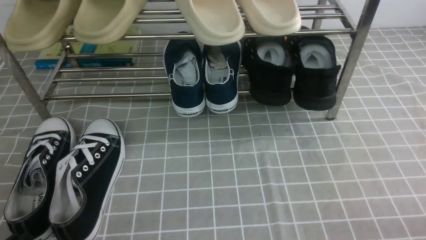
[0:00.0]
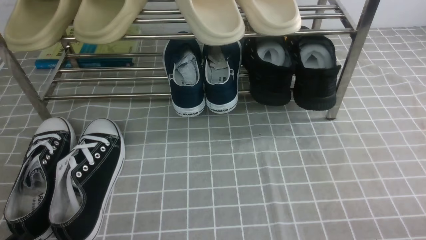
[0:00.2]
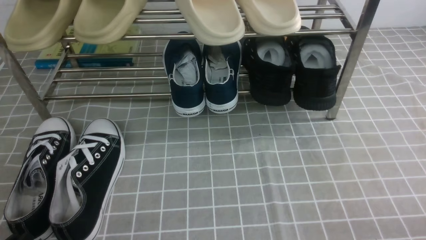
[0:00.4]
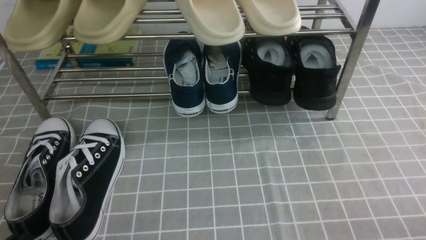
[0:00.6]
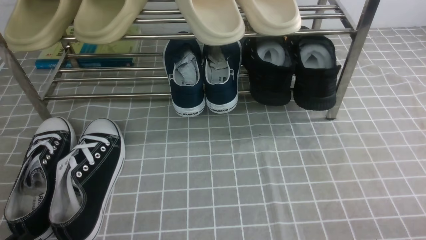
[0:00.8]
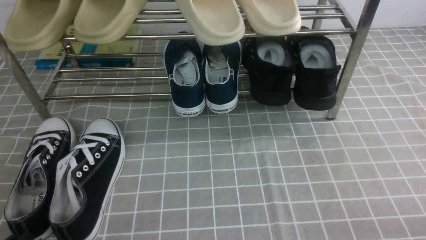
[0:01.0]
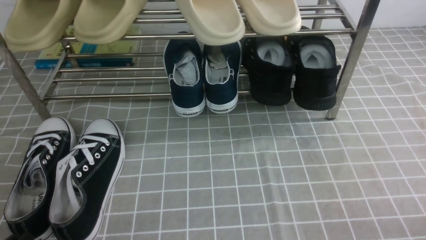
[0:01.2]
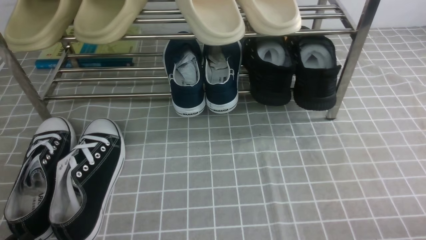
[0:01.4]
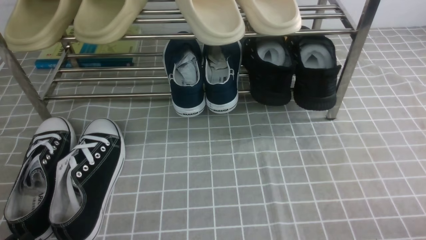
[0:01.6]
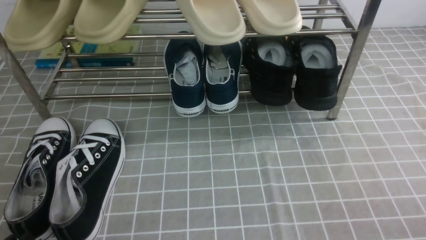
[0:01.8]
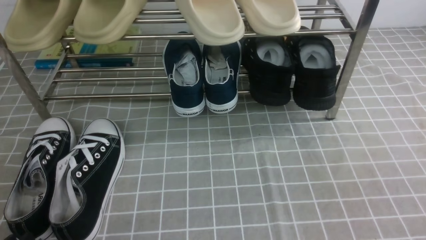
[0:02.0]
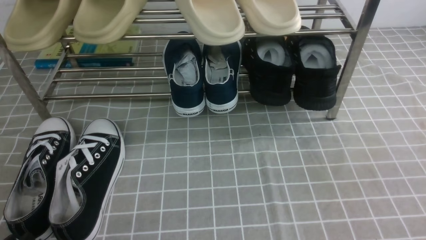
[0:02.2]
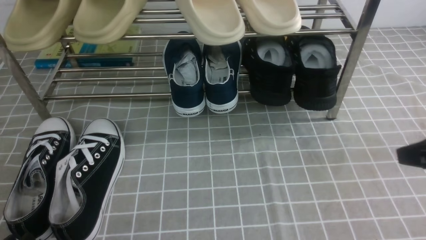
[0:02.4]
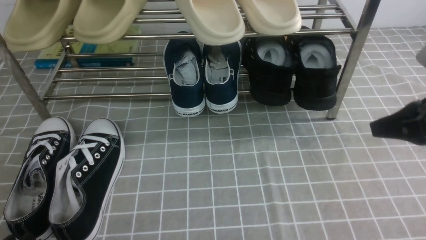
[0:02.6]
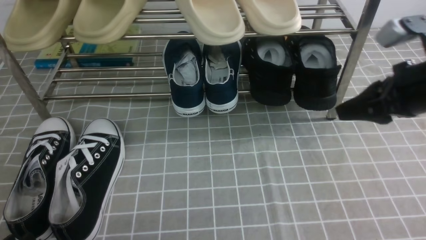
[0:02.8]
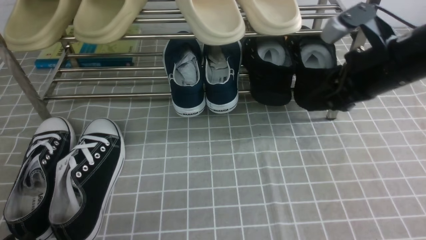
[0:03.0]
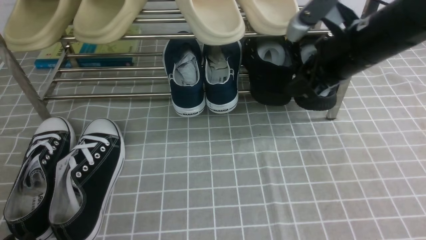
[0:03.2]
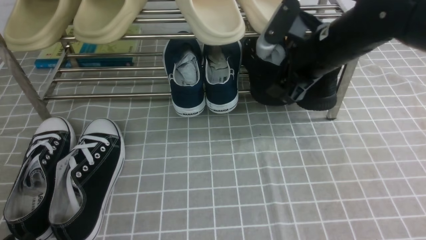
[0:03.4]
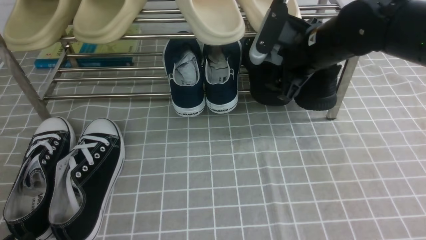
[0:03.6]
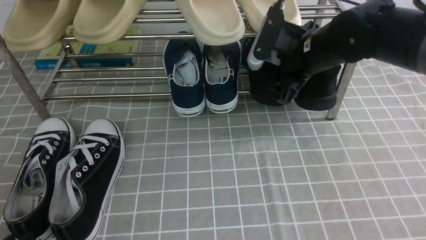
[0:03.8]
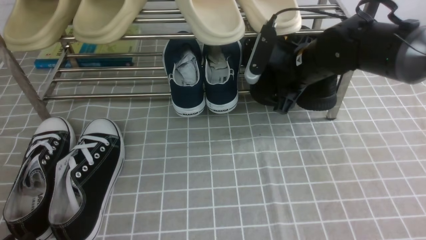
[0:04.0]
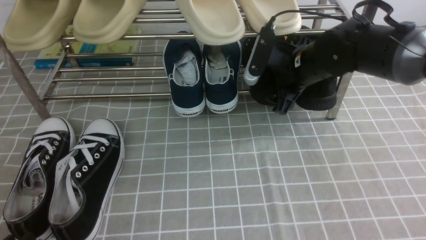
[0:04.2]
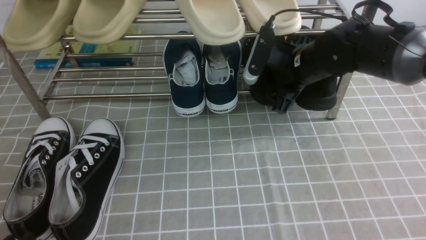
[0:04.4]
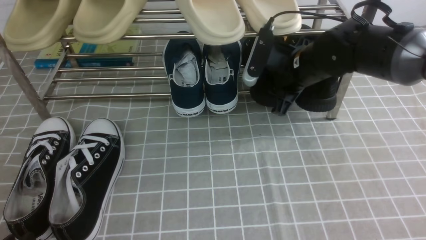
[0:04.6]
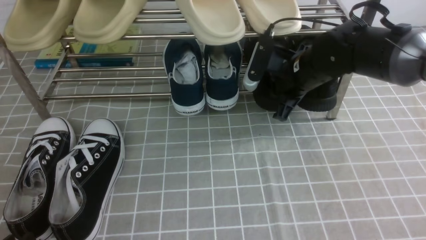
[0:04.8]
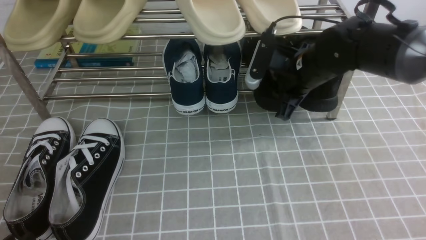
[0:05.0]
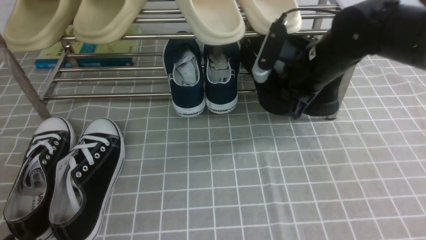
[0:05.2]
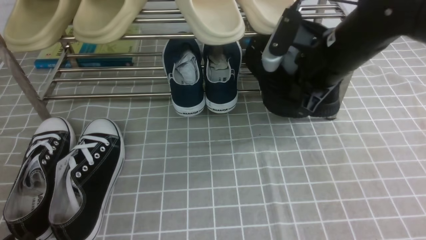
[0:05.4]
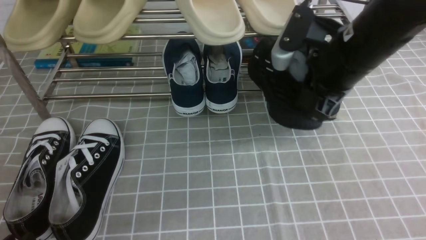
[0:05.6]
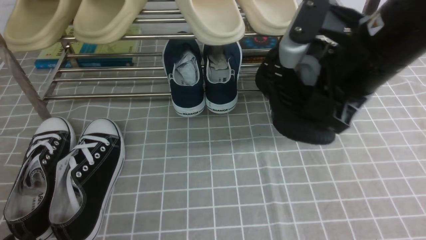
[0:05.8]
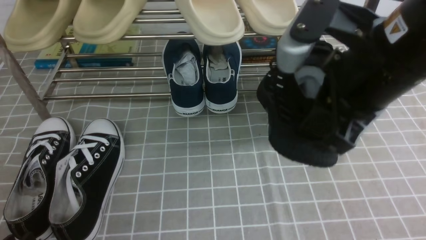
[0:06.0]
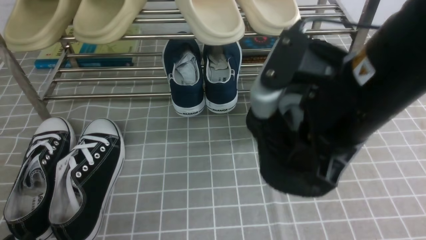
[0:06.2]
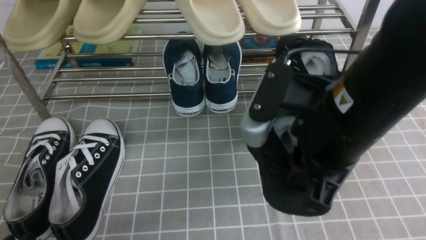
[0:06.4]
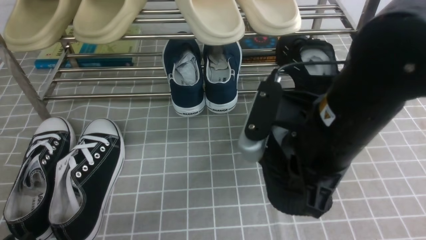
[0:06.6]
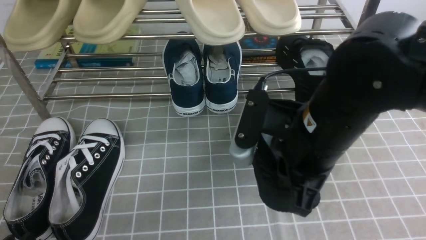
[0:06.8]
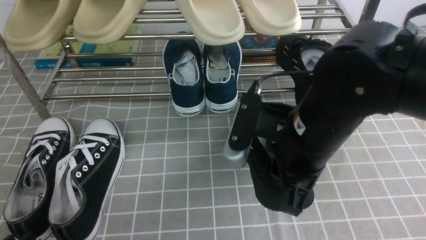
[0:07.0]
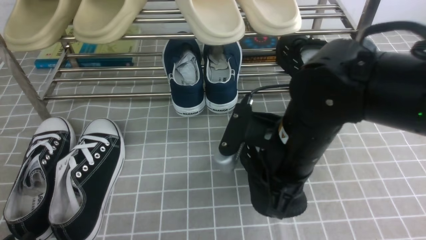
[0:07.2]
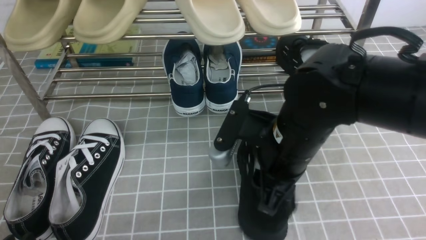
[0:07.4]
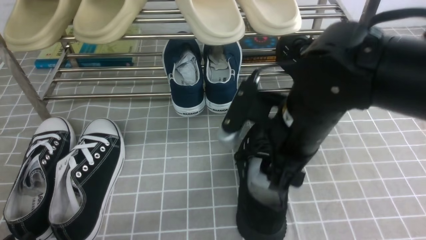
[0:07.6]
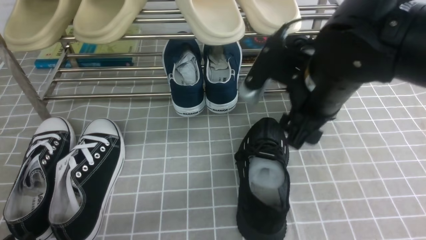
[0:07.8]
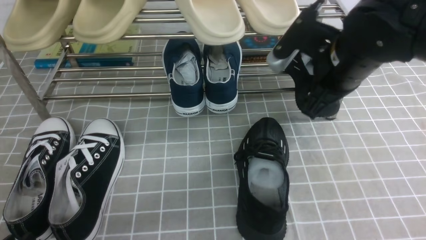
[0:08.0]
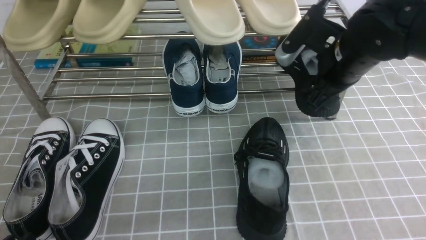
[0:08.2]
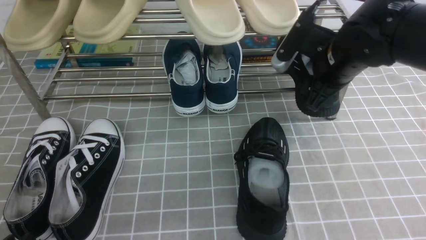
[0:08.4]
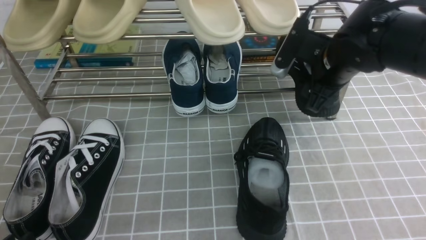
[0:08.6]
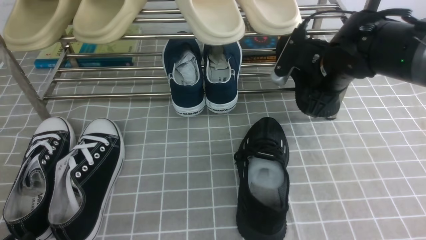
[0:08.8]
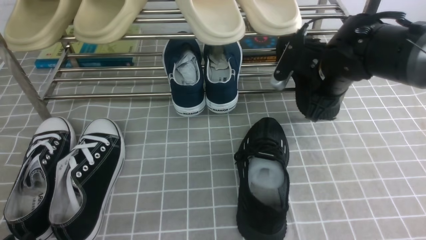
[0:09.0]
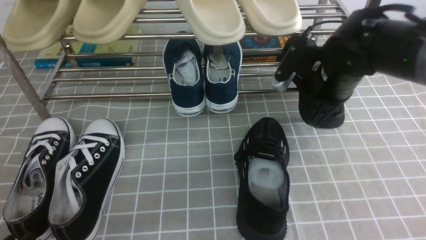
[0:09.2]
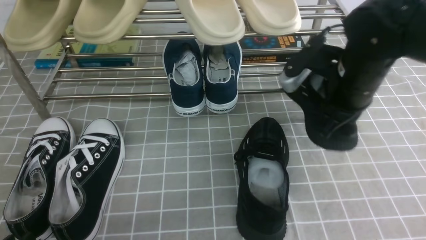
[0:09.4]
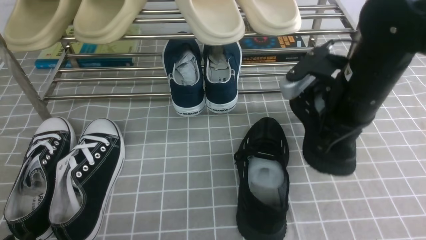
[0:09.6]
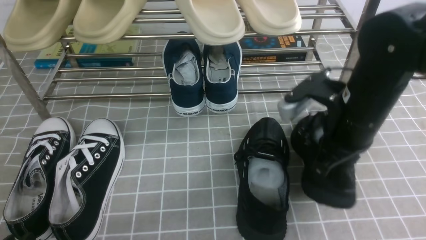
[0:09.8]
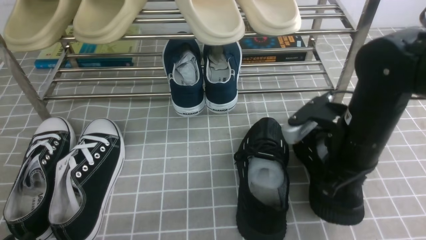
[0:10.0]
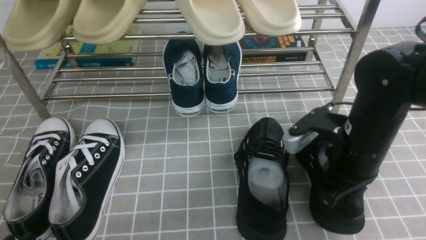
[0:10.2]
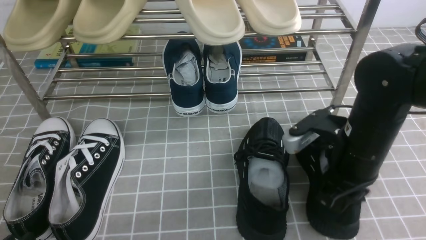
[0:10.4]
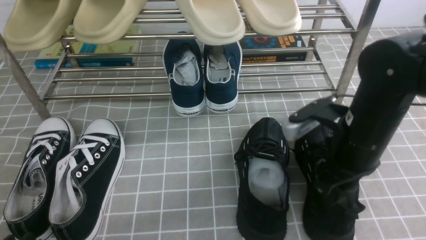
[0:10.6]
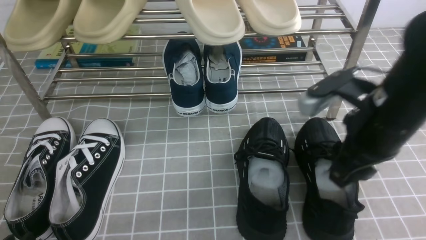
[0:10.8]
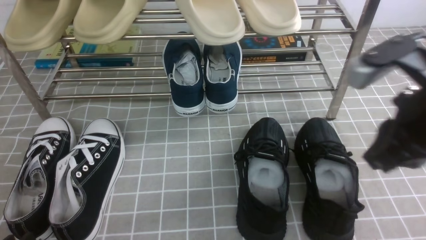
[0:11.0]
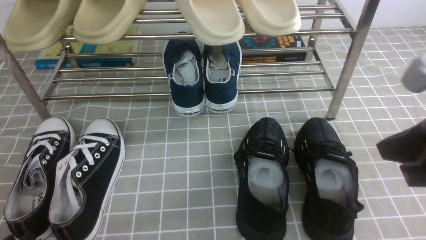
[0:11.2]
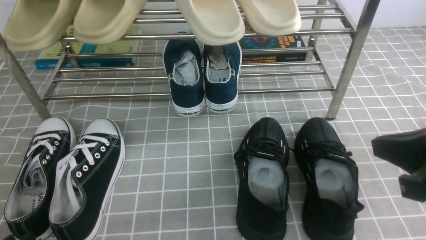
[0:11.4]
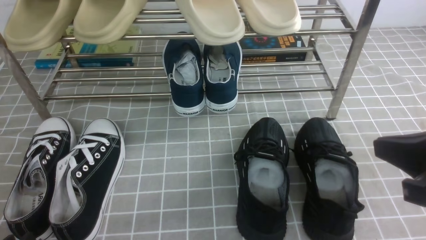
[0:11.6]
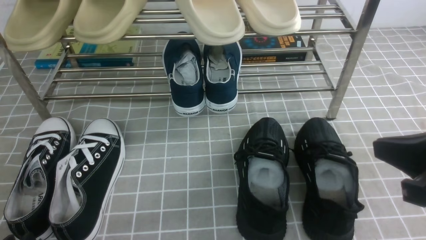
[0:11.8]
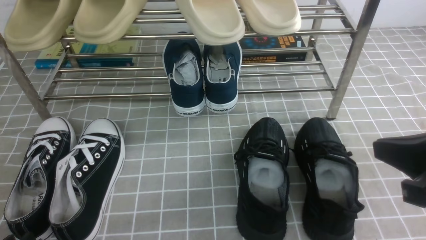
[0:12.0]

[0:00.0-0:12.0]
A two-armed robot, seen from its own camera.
Step, 0:00.0 to 0:04.6: use the right arm to clamp a shoe on the right side of the shoe rack.
Step, 0:05.0 to 0:07.6: use the right arm to take out the clamped shoe from the shoe rack and put it down.
Step, 0:07.8 to 0:09.2: use the right arm to clamp a shoe on the right side of the shoe rack.
Step, 0:09.4 to 0:10.6: use the right arm to take out the clamped shoe from the shoe rack and put it down.
0:01.6 to 0:03.0: The right gripper heads forward and upward, covering roughly 30 cm, and closes, then reopens.
0:03.0 to 0:04.4: The right gripper heads forward, downward and to the left, covering approximately 15 cm.
0:04.4 to 0:06.0: The right gripper moves backward and upward, some 25 cm, and closes its fingers.
0:06.0 to 0:07.6: The right gripper moves downward, roughly 10 cm, and opens.
0:07.6 to 0:09.0: The right gripper goes roughly 15 cm forward and to the right, and closes.
0:09.0 to 0:10.4: The right gripper heads backward, covering approximately 10 cm.
0:10.4 to 0:12.0: The right gripper goes roughly 15 cm backward, upward and to the right, and closes its fingers.

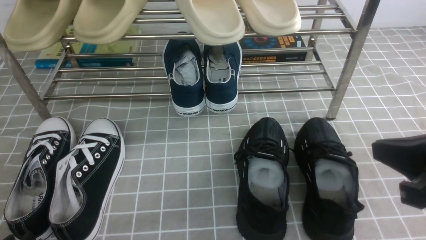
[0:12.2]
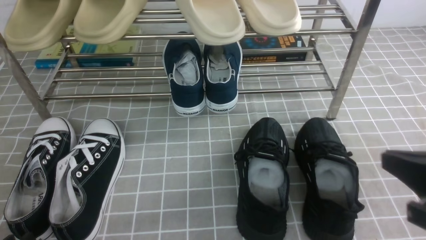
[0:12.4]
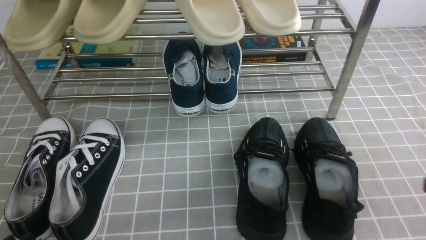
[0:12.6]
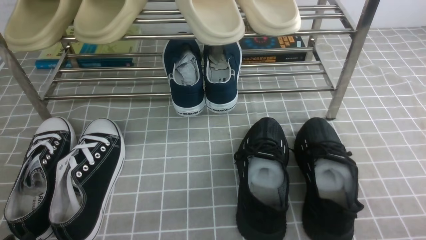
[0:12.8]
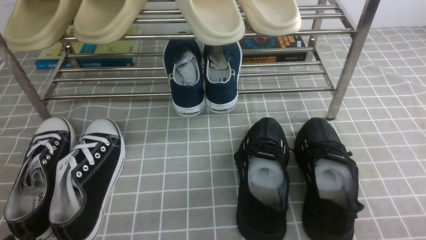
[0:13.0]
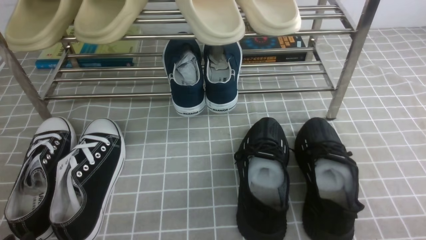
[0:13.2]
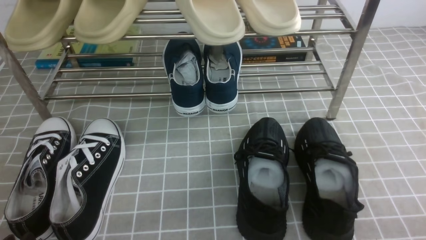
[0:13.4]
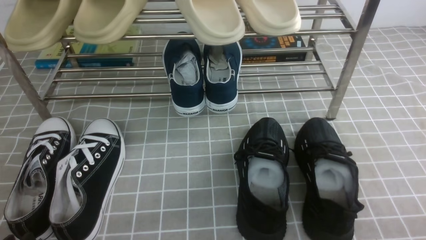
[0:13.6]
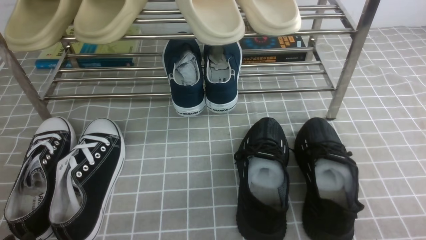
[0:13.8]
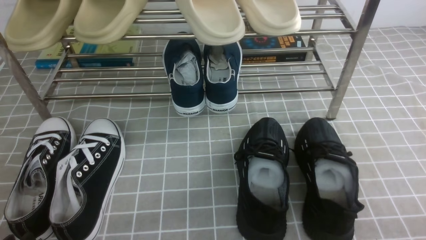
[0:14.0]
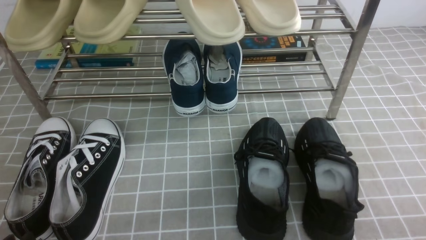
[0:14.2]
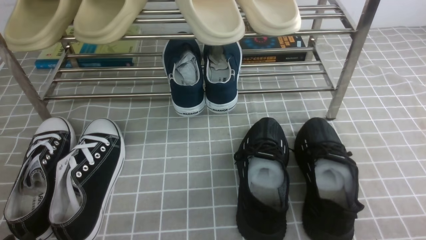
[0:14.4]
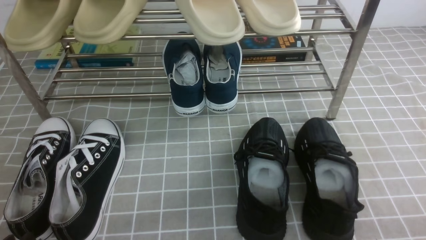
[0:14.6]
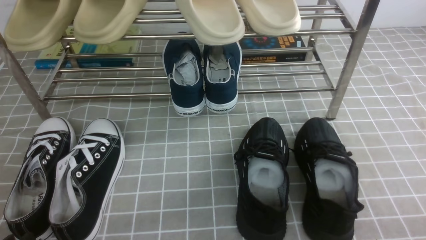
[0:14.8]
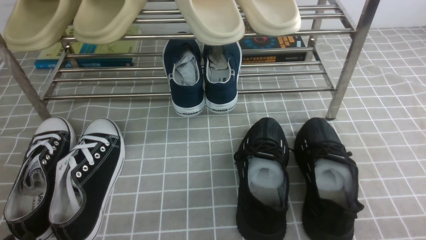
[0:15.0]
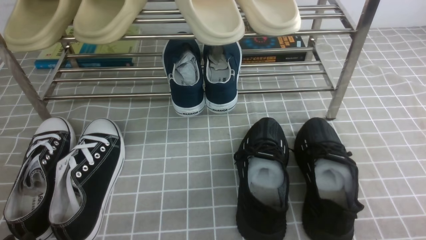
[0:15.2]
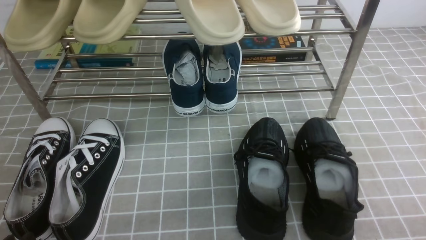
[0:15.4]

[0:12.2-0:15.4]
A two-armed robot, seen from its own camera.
0:12.2 to 0:13.8: The right gripper goes about 15 cm downward, backward and to the right.
0:13.8 to 0:15.4: Both grippers stay about where they are.

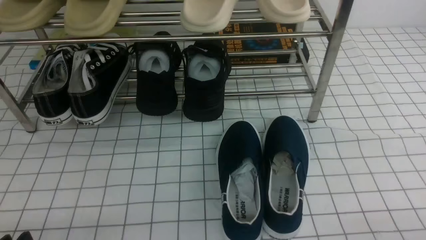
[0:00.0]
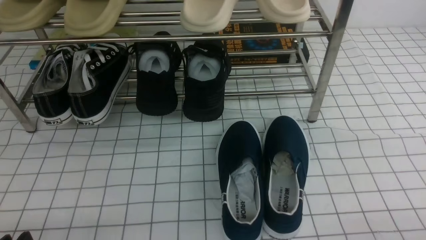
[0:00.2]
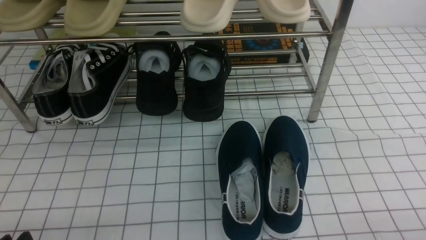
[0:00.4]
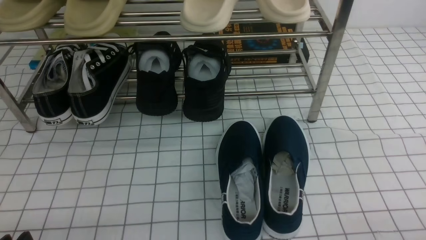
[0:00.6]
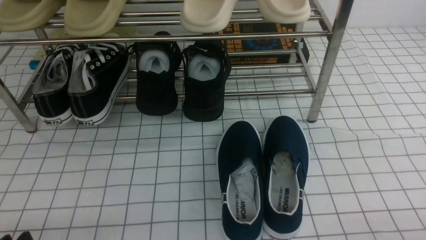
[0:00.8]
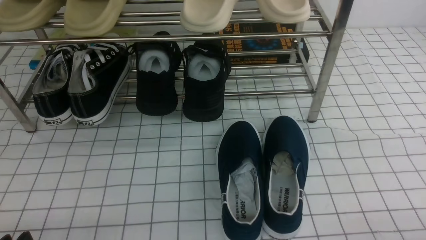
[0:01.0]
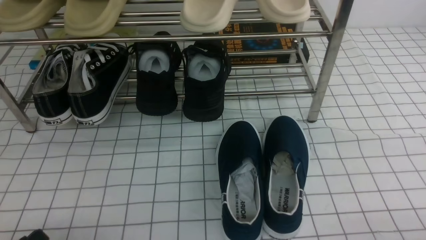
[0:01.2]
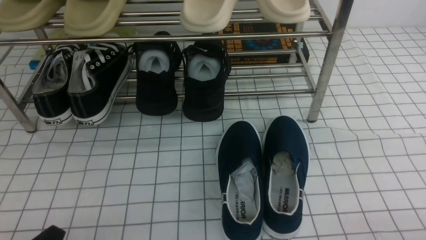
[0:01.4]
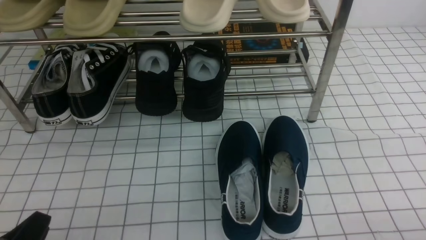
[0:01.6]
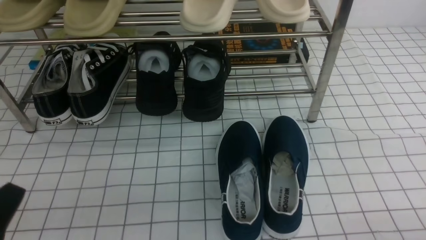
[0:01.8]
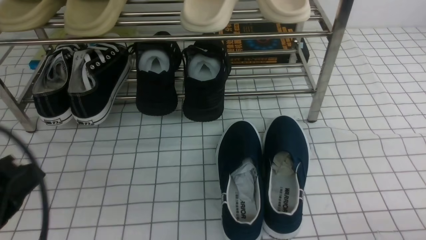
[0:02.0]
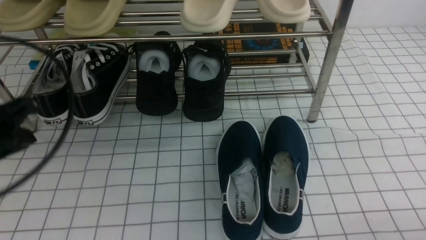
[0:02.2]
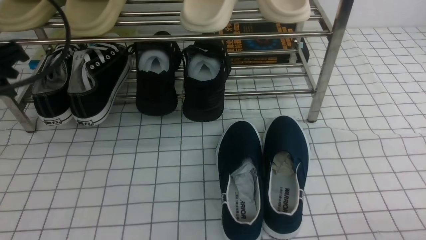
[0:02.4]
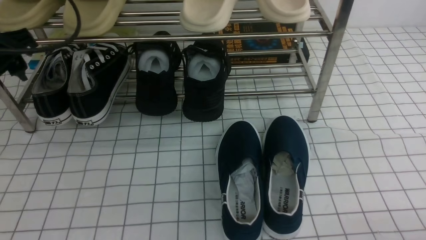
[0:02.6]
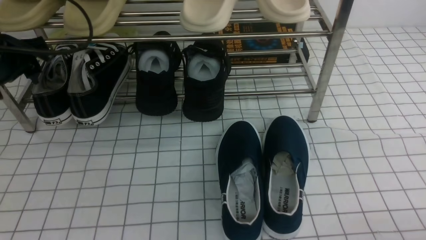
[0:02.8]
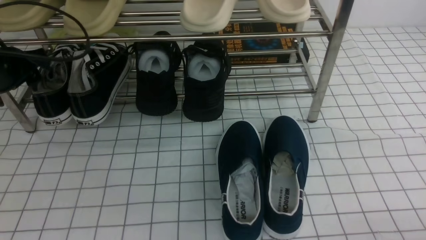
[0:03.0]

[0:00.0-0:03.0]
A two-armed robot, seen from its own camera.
0:01.6 to 0:03.0: The left gripper shifts roughly 30 cm forward, and opens its fingers.
